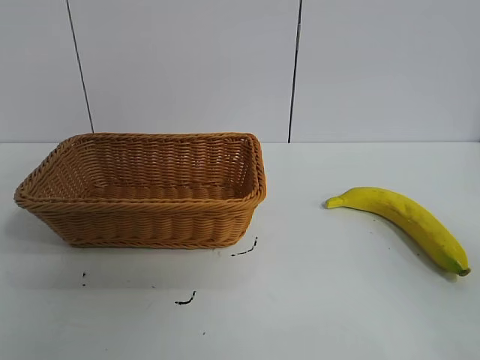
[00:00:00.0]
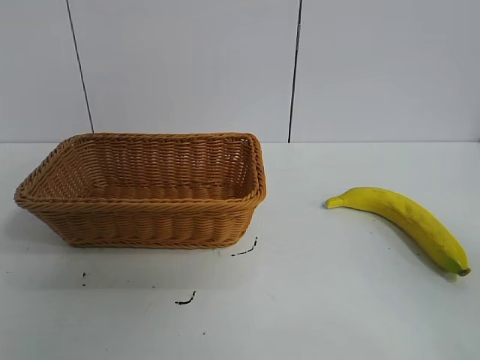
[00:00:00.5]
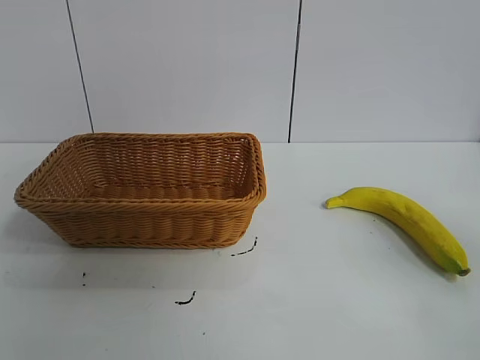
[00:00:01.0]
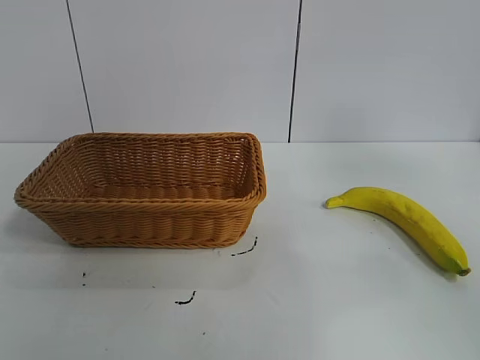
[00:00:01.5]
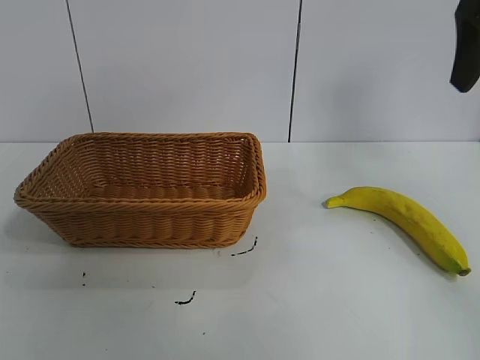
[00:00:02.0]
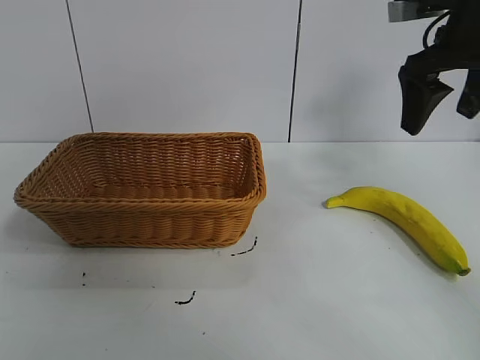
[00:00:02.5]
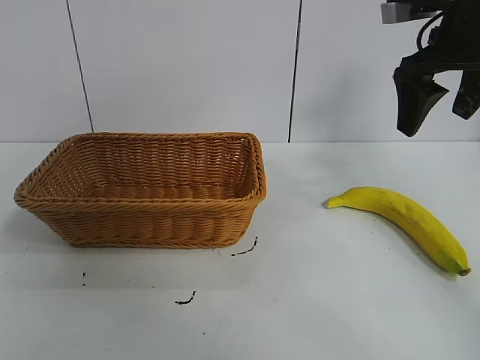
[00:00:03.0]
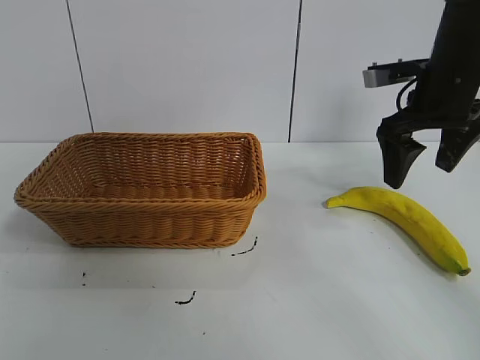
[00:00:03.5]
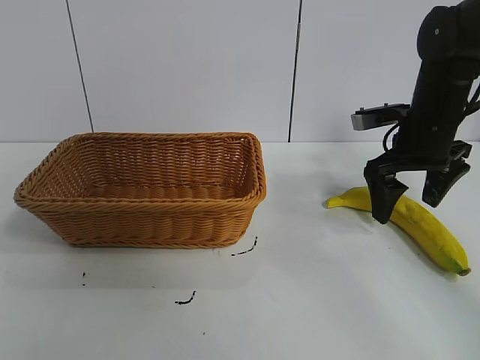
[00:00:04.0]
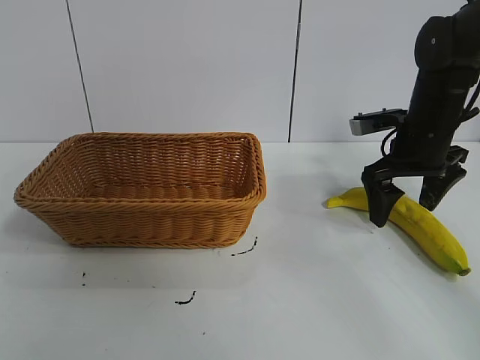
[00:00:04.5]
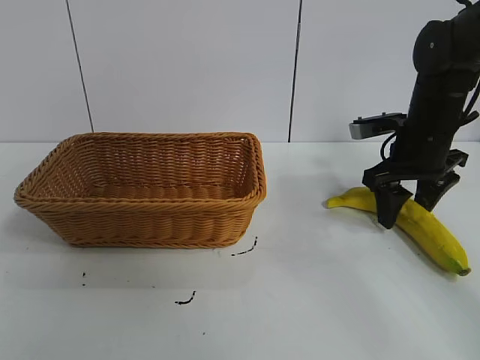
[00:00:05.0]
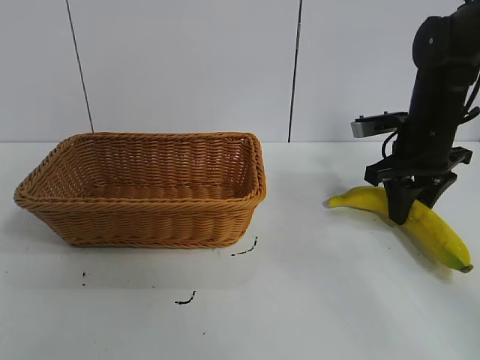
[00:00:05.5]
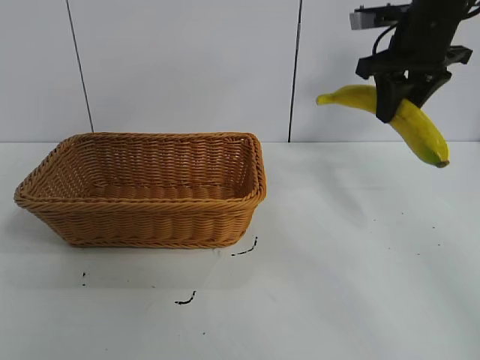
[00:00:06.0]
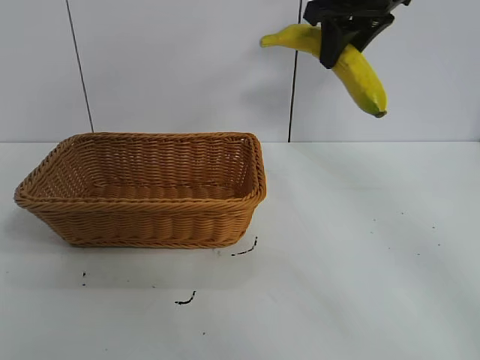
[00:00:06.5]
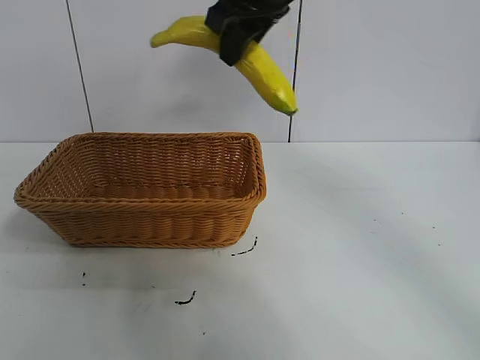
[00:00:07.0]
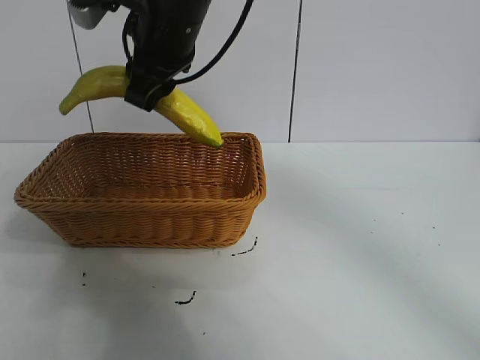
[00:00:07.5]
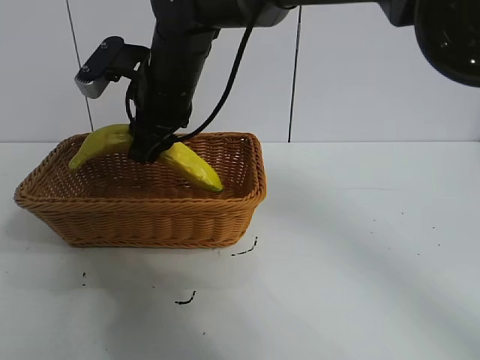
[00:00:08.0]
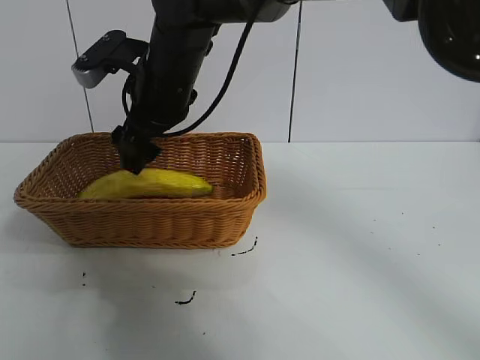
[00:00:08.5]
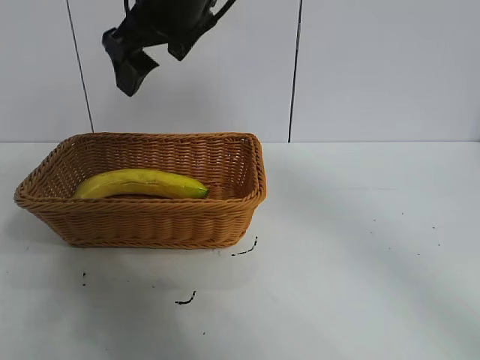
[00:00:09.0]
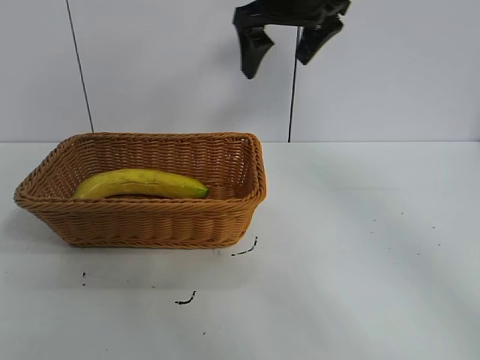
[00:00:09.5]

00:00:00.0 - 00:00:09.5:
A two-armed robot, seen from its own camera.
Task of the whole recording: pick up the banana and put it into the basket.
Step, 00:00:01.0 - 00:00:05.0: Grasp the banana with right gripper.
Step, 00:00:05.5 - 00:00:08.0: Place the banana in the basket with right gripper.

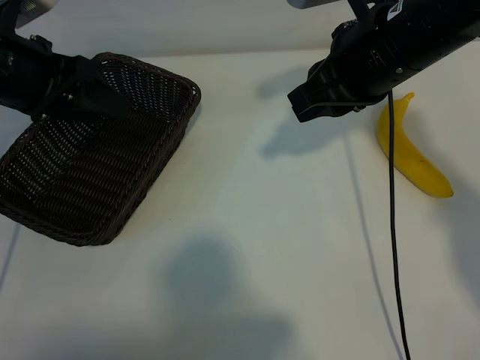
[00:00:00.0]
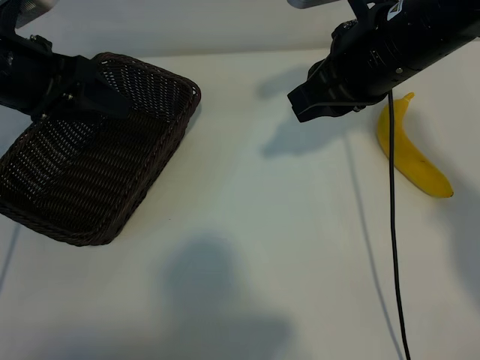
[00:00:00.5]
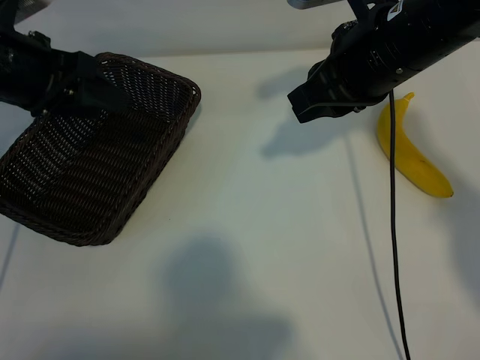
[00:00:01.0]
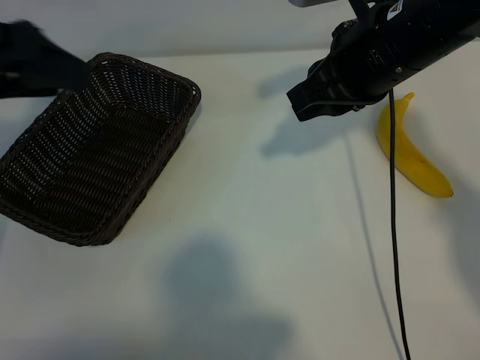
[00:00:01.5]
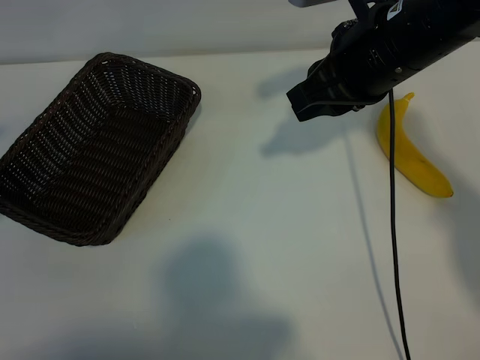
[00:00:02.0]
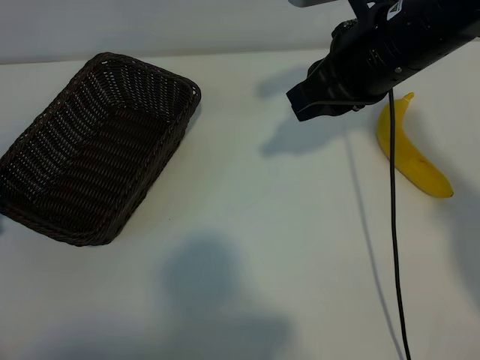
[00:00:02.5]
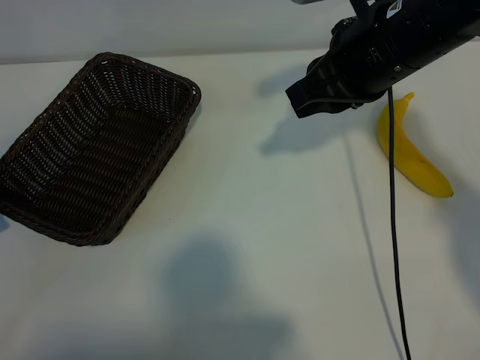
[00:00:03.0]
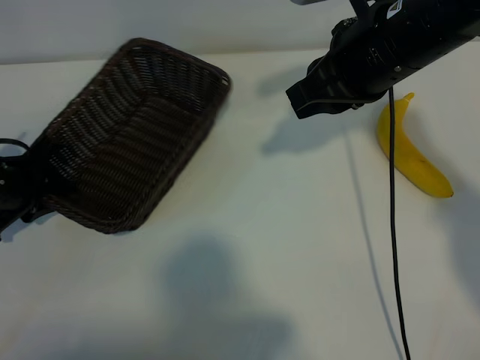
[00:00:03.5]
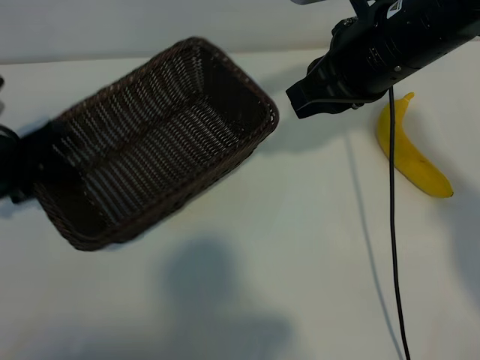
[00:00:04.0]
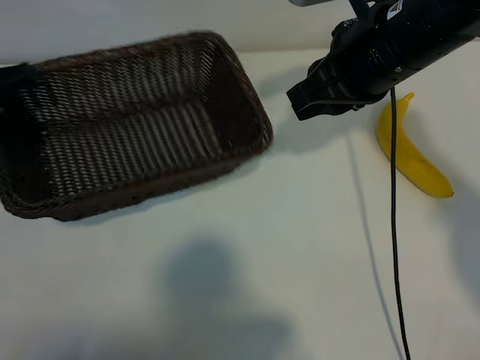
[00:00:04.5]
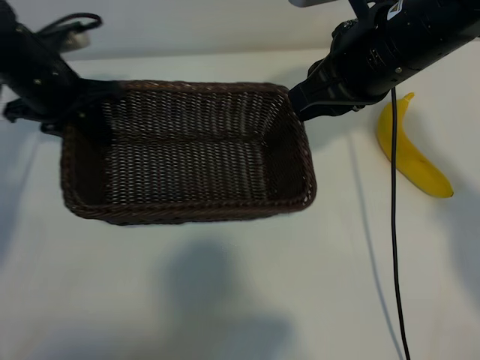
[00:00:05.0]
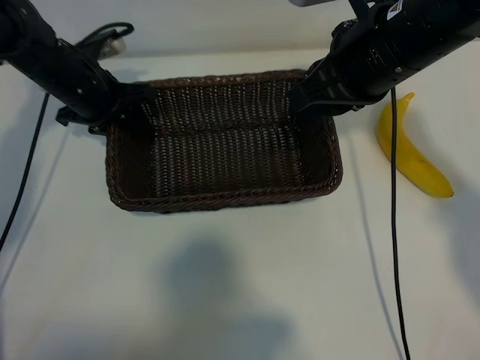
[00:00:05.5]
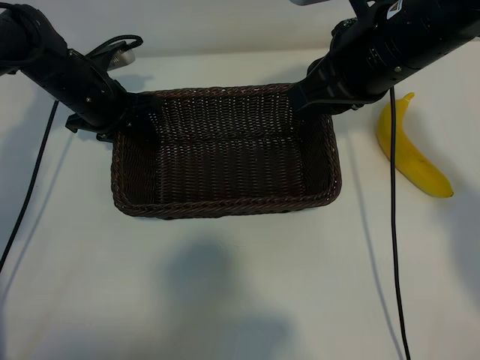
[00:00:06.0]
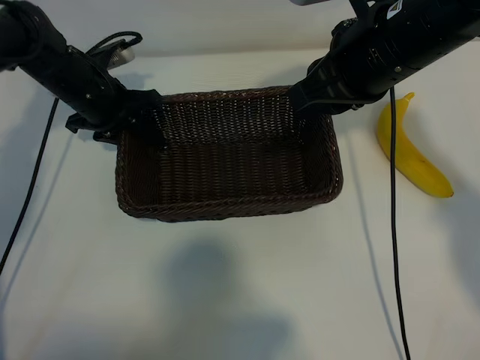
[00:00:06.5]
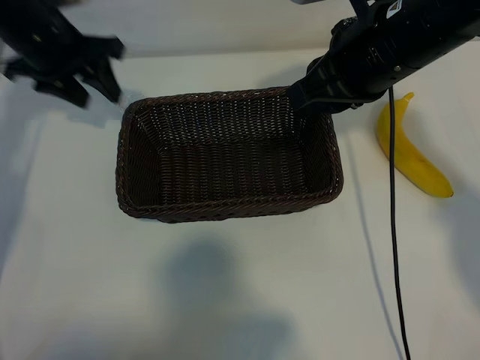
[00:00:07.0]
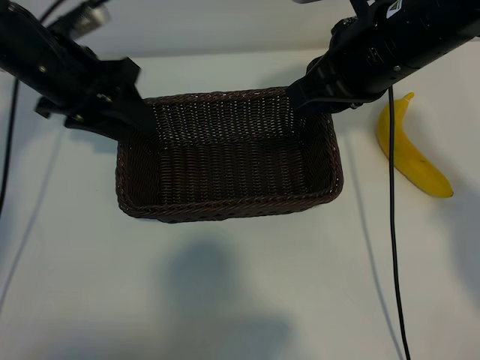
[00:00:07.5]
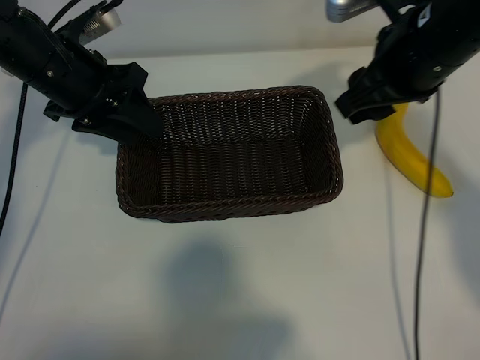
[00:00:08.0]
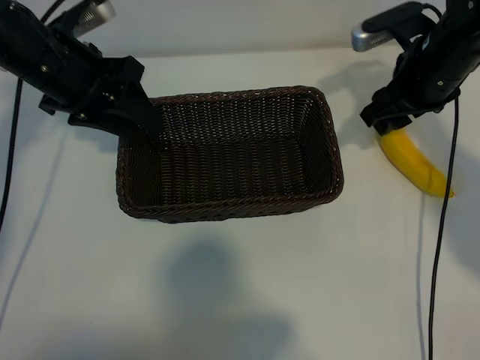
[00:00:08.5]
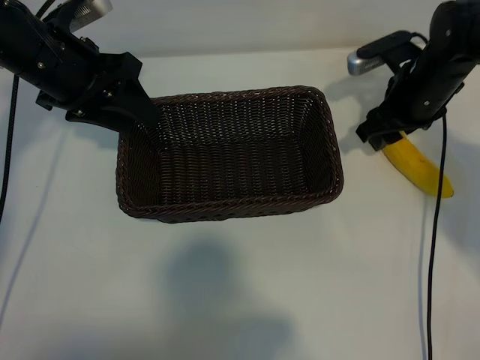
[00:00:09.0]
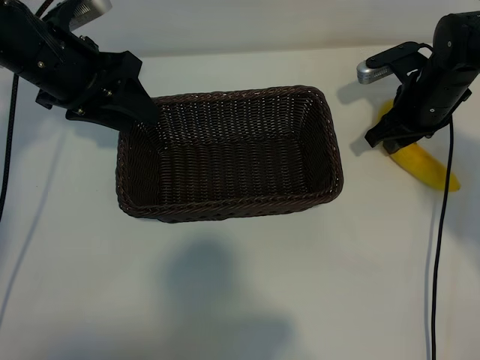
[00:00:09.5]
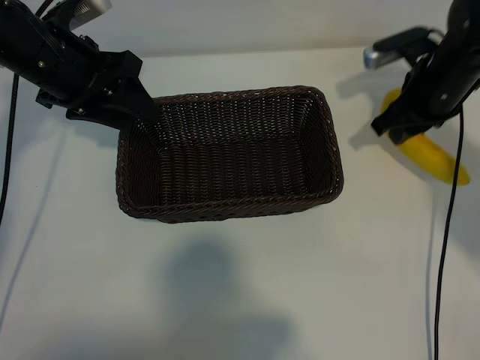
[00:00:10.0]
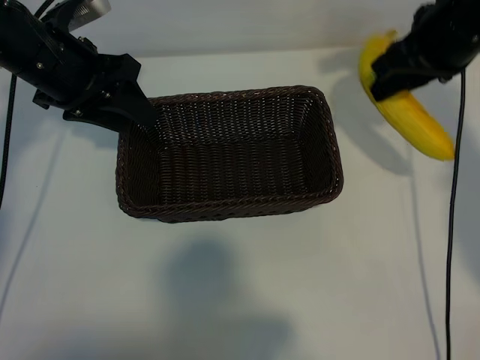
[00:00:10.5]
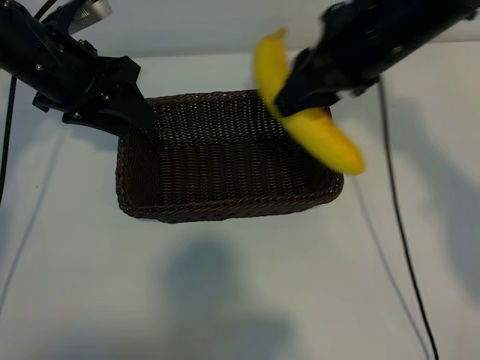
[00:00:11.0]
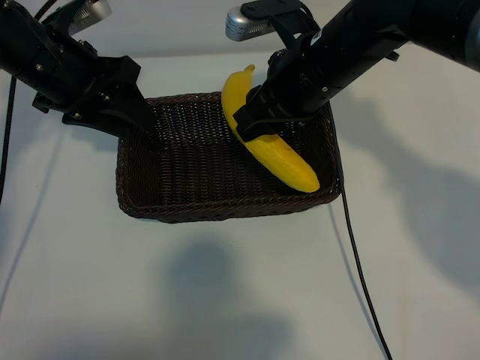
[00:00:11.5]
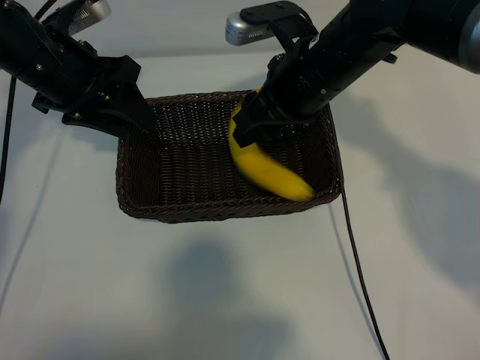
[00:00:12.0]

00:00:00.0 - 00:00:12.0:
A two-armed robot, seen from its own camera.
Task of the whole recording: pick up the banana and put it into the basket.
Step, 00:00:01.0 - 00:00:03.5: Grasp the basket with the left gripper.
Step, 00:00:04.0 - 00:00:06.5: Place the basket in the center of the table with the left gripper.
Step, 00:00:07.0 - 00:00:09.5: Grasp the banana with right gripper.
